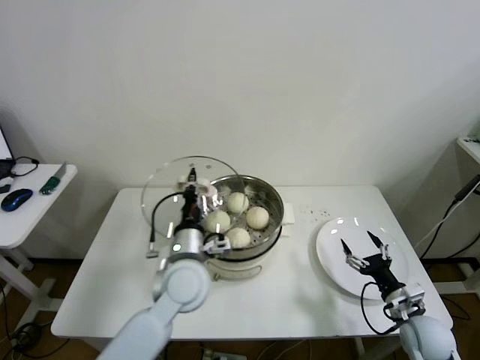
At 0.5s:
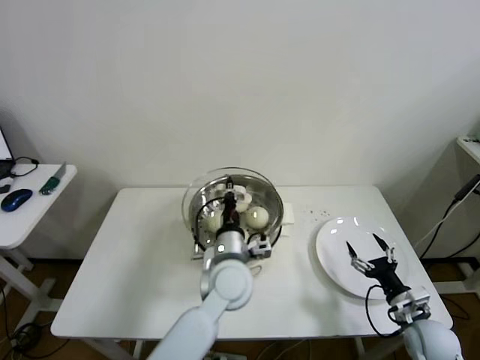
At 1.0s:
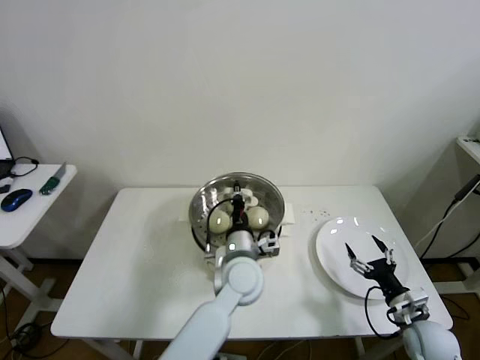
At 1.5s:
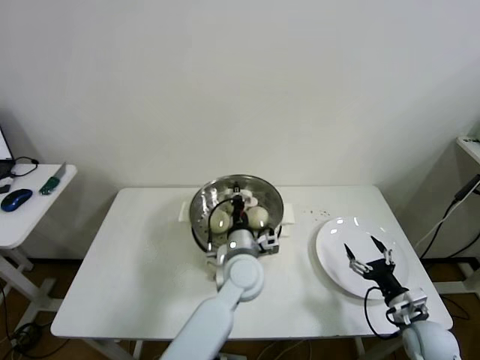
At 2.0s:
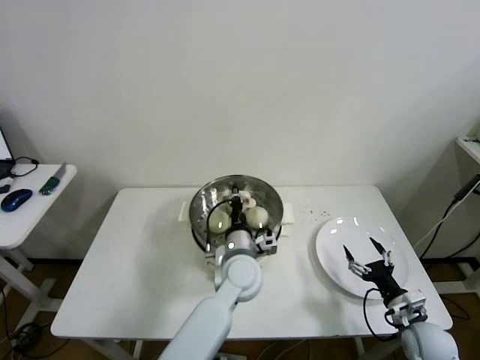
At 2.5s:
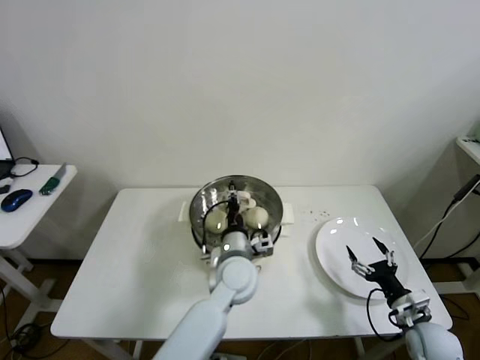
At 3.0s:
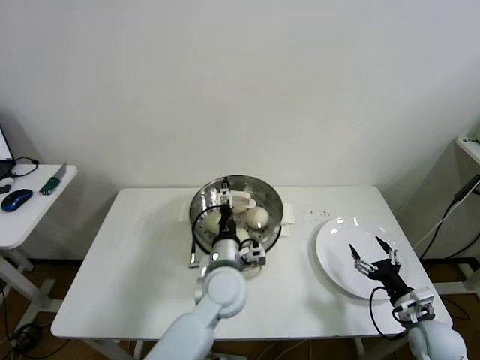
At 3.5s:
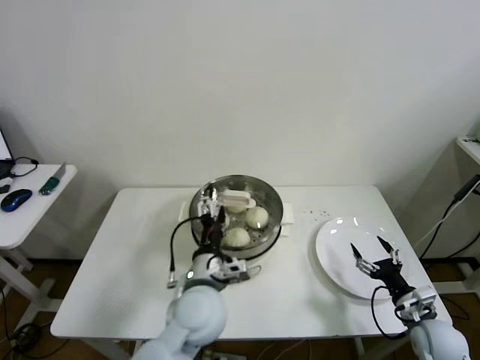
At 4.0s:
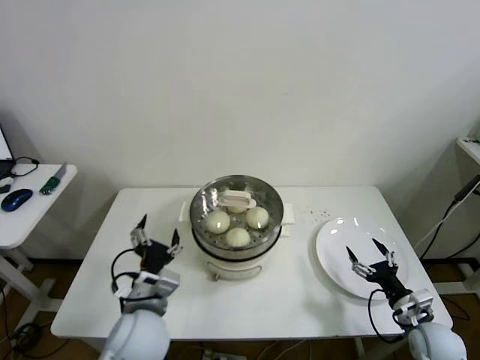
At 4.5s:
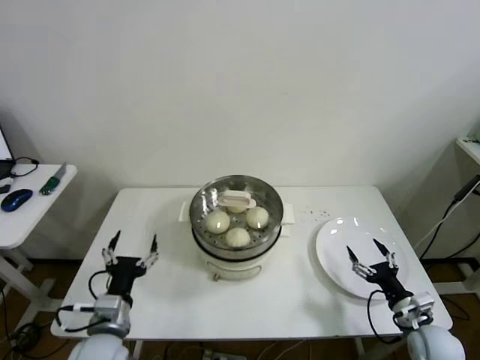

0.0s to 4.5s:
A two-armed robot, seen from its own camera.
Step, 0.0s to 2.0s: Place the pot lid on the steamer with left gripper.
0.0s to 2.0s: The left gripper shifts roughly 15 cm to the right and downward.
2.0s to 4.5s: The left gripper moves to the left and backward, about 30 cm, and opens.

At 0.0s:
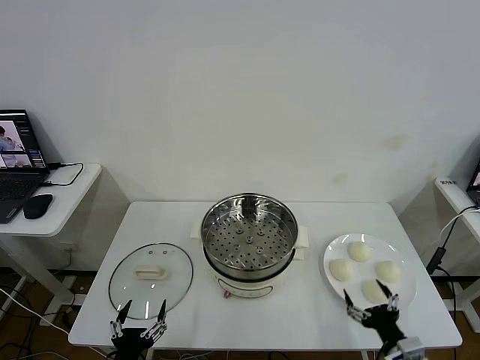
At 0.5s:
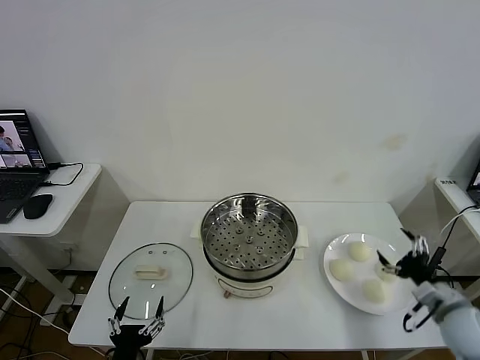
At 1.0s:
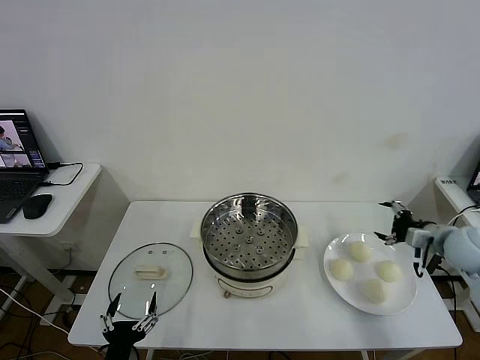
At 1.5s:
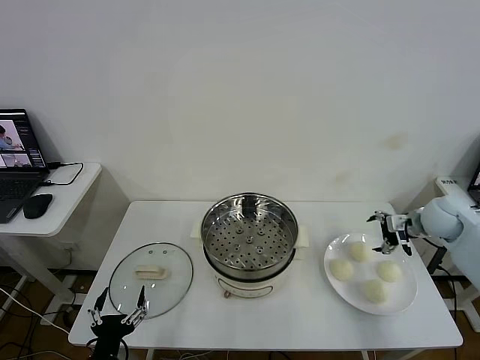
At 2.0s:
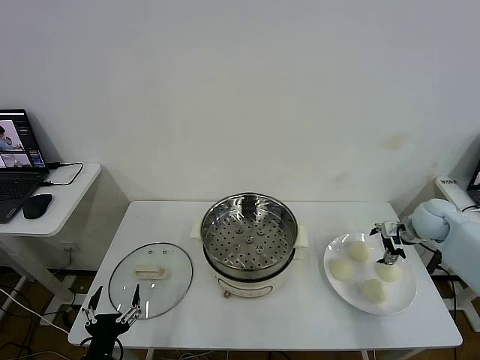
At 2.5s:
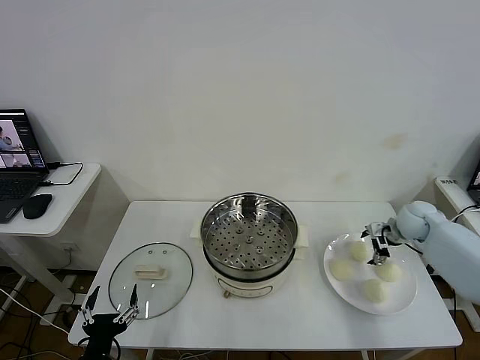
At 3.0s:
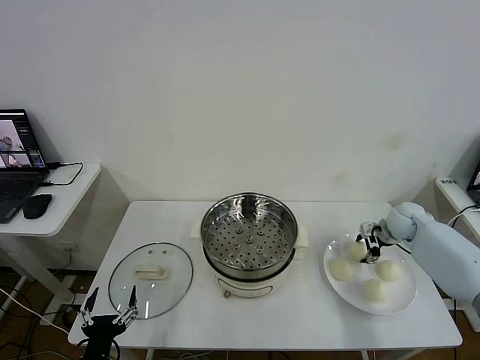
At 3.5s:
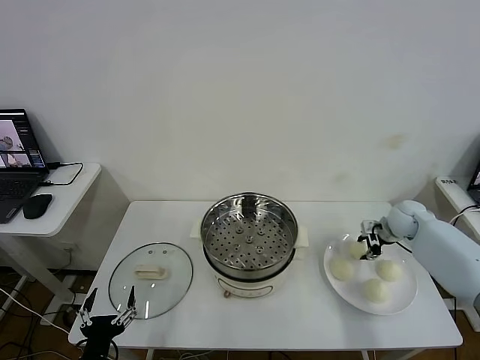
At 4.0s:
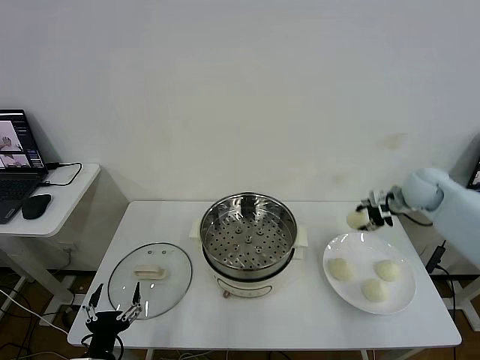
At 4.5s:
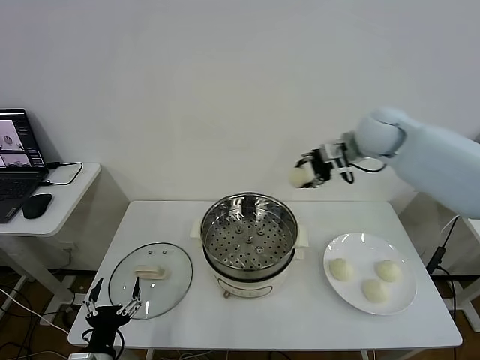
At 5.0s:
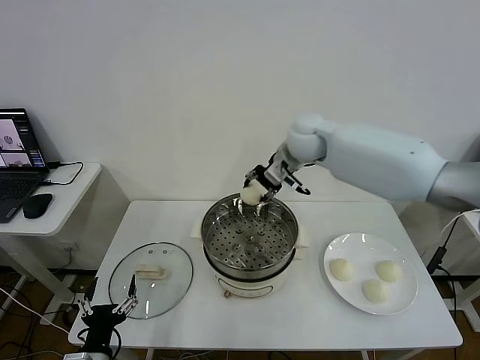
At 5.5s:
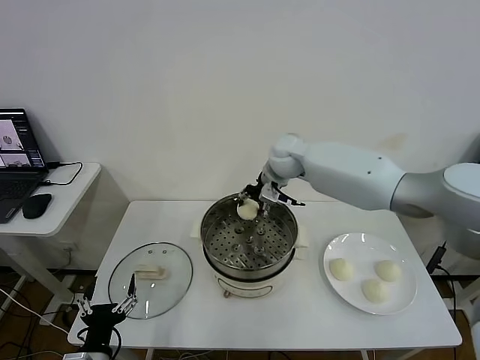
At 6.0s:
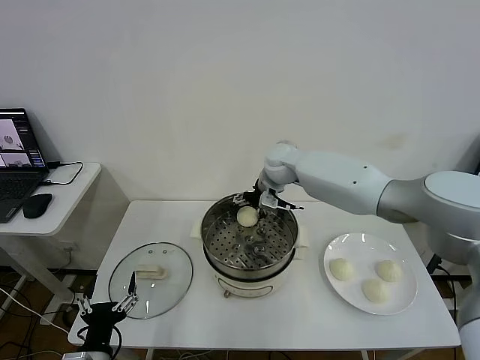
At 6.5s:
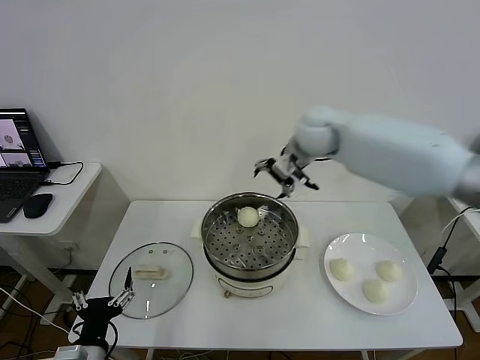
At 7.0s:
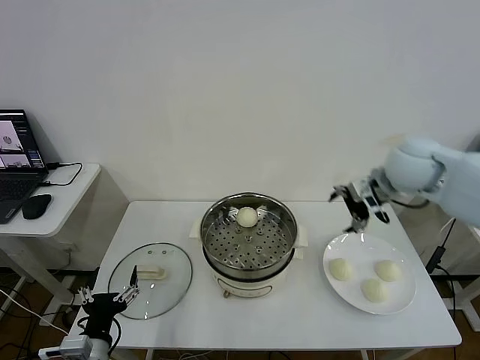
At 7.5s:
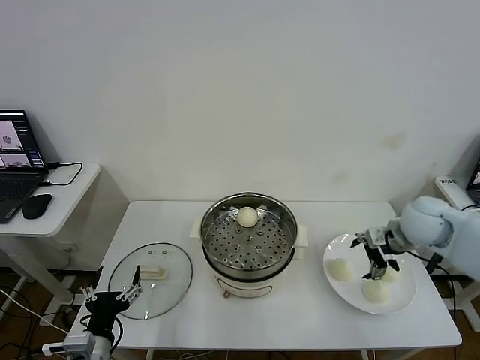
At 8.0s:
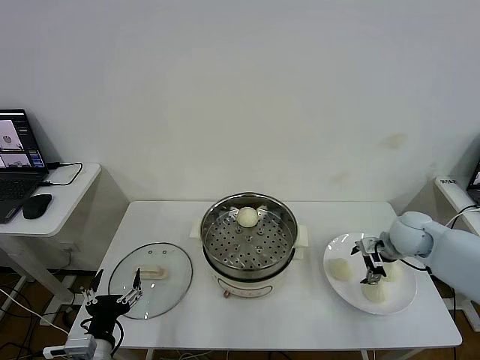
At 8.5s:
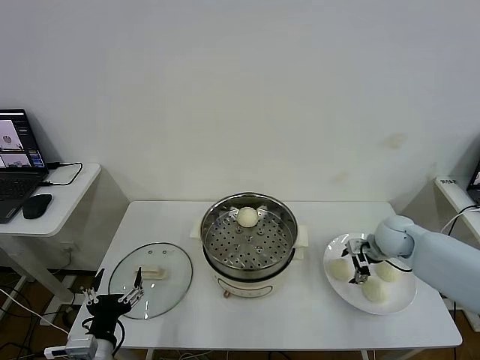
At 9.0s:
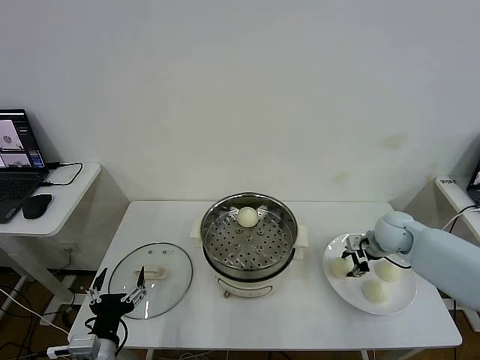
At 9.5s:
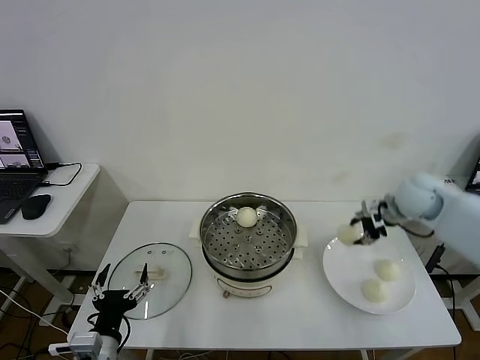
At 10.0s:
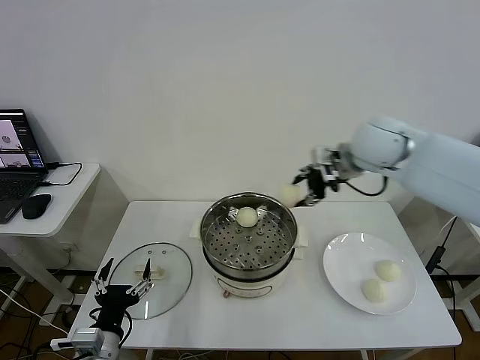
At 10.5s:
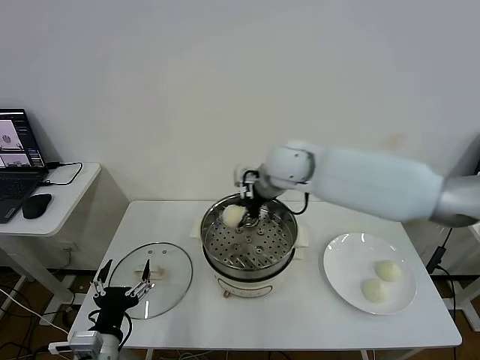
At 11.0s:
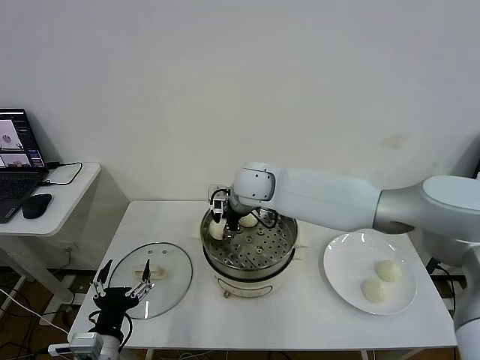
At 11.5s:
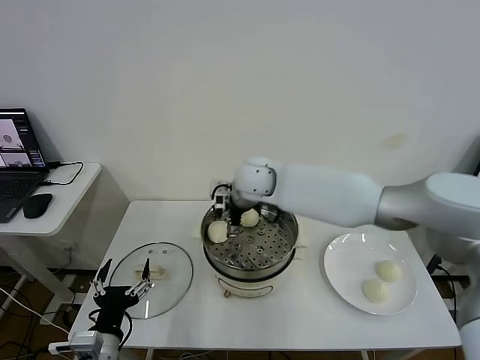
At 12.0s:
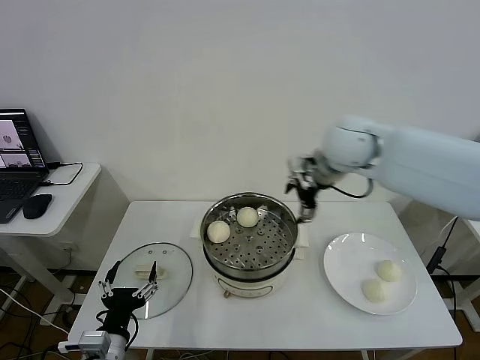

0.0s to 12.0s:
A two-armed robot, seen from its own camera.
Step, 0.0s to 3.0s: Grasp the baozi in the plate with right gripper.
Step, 3.5s to 6.0s: Place the baozi on the steamer with right gripper.
Step, 6.5s to 8.5s: Grasp the baozi in the plate with right gripper.
Step, 9.0s to 11.0s: Place the baozi on the steamer with right gripper.
2.0s to 4.0s: The right gripper shifts some 15 cm upward and to the left, and closes its fingers.
4.0s to 6.0s: The right gripper is displaced to the left by about 30 cm, and opens up.
6.0s to 8.0s: The right gripper is displaced to the right and backward by about 30 cm.
8.0s to 10.0s: The right gripper is displaced upward and to the left by approximately 30 cm, and closes.
10.0s to 12.0s: The right gripper moves approximately 20 cm to the left and comes back, and opens.

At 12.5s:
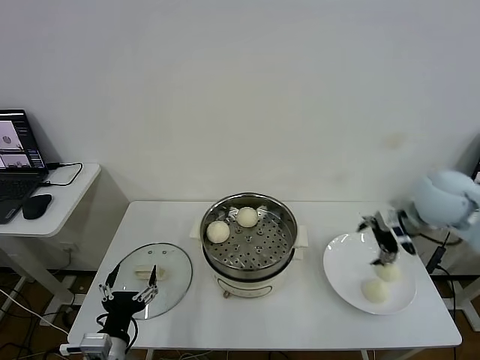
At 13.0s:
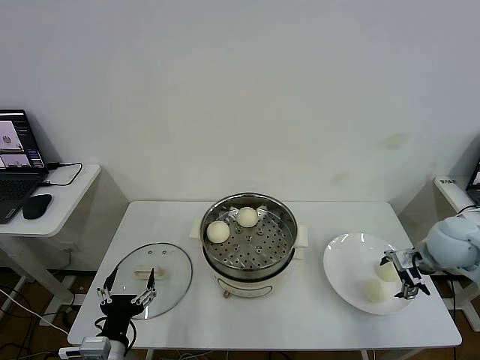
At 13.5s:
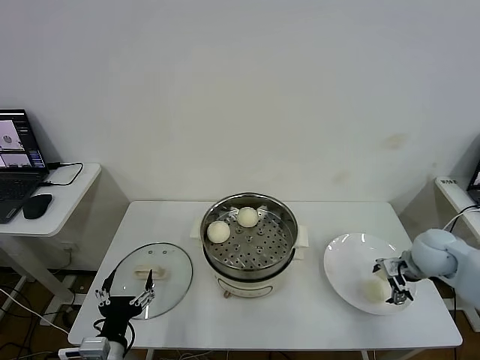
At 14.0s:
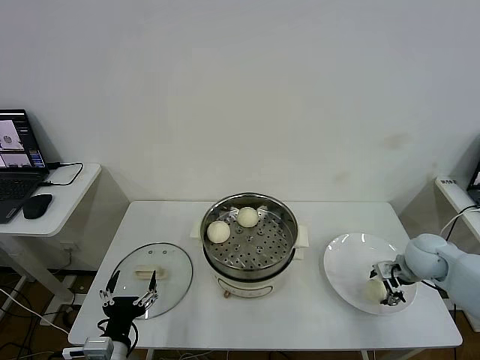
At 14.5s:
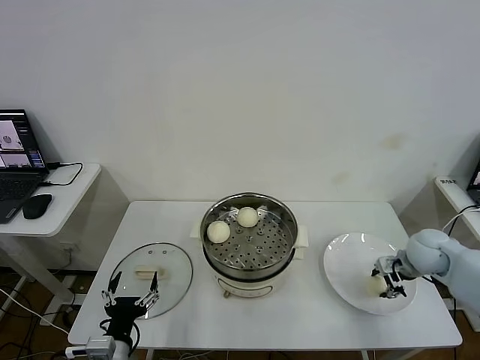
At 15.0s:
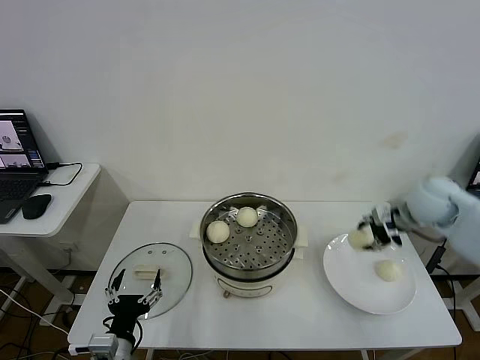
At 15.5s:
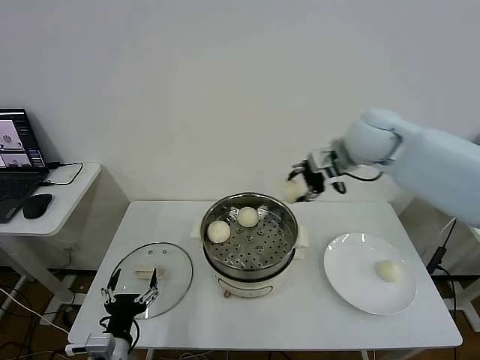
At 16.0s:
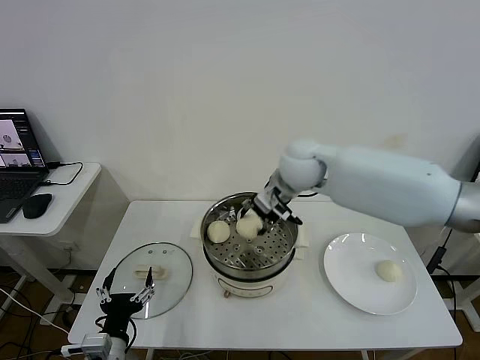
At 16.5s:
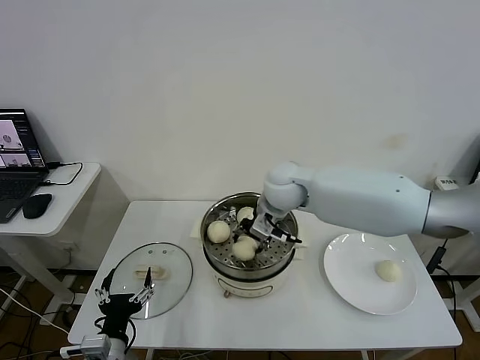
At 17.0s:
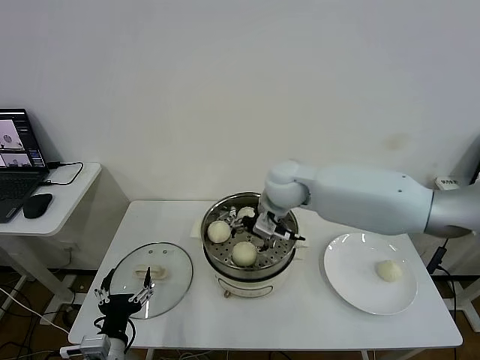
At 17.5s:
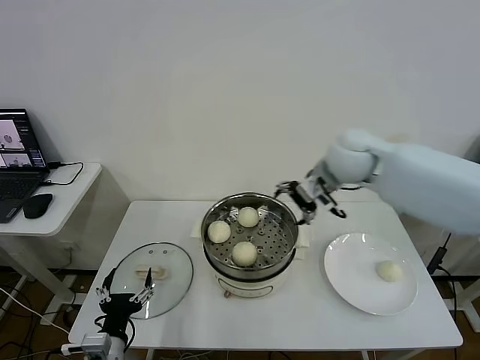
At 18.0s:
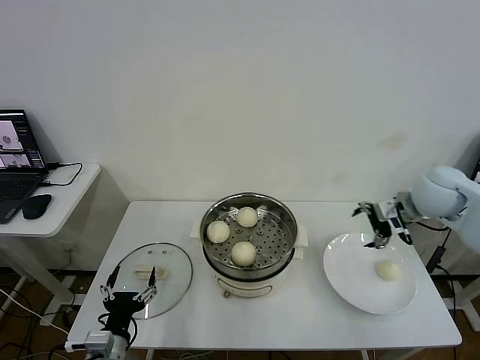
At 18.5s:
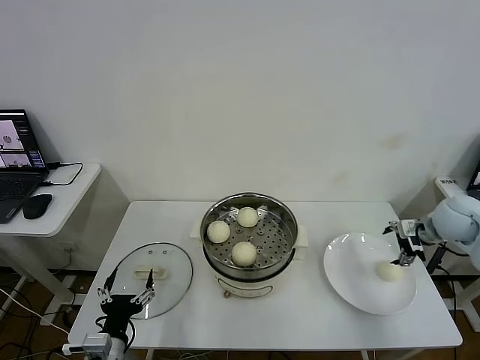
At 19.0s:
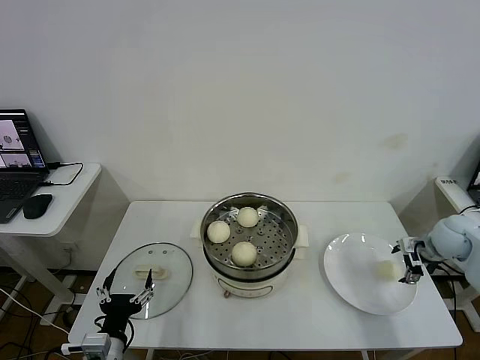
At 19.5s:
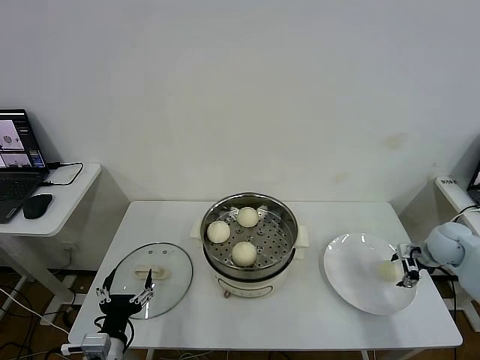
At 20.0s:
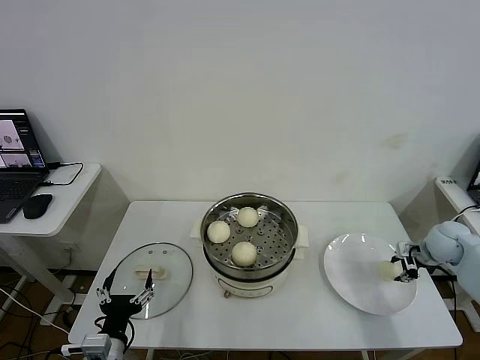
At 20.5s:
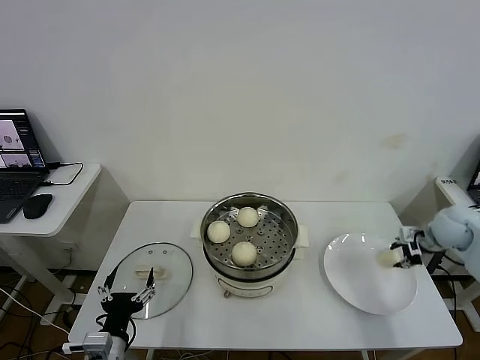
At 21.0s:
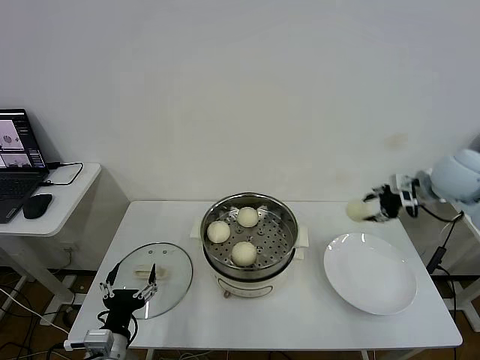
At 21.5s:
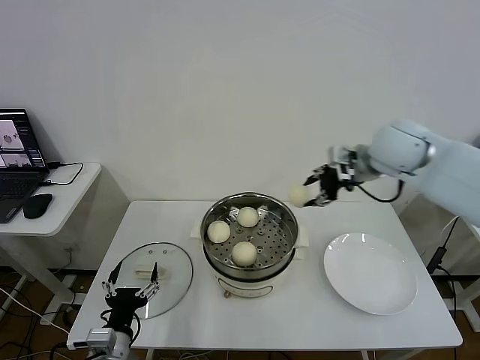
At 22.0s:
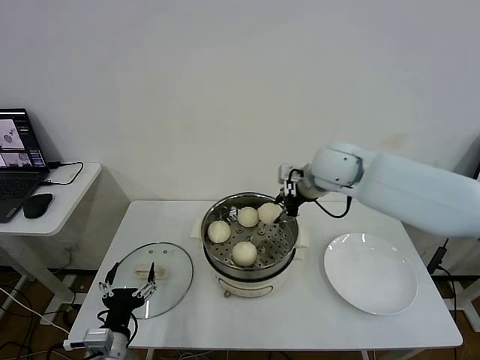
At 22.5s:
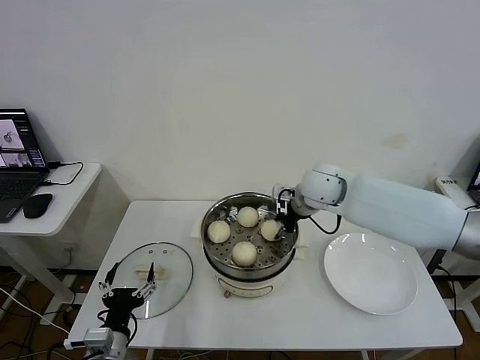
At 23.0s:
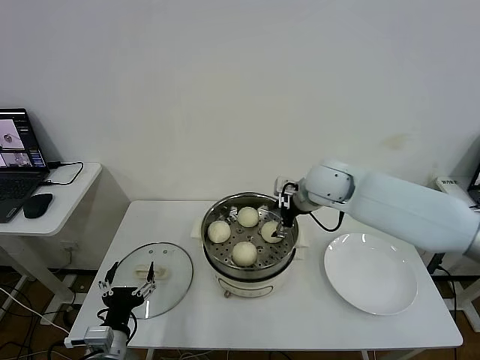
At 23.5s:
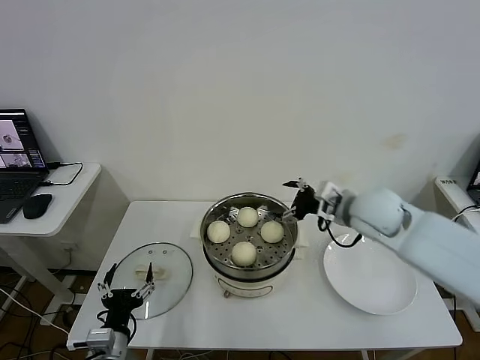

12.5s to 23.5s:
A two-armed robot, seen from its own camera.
Step, 12.5s to 14.0s: Grasp the baozi in the plate with right gripper.
Step, 14.5s to 16.5s: Place the baozi on the steamer with right gripper.
Step, 17.0s to 19.5s: Grasp the baozi in the plate with right gripper.
Step, 20.5s to 22.5s: Place the baozi on the steamer with right gripper.
12.5s to 14.5s: The right gripper goes some 15 cm downward, and closes.
14.5s to 16.0s: The right gripper is displaced to the left and upward by about 35 cm.
16.0s to 18.0s: The right gripper moves to the right, some 30 cm, and opens.
18.0s to 20.0s: The right gripper travels downward and to the right by roughly 20 cm, and closes up.
20.0s to 21.5s: The right gripper heads upward and to the left, covering some 35 cm.
21.5s to 23.5s: The right gripper heads downward and backward, covering about 15 cm, and opens its fingers.
